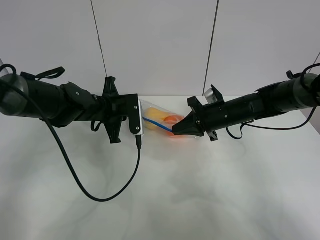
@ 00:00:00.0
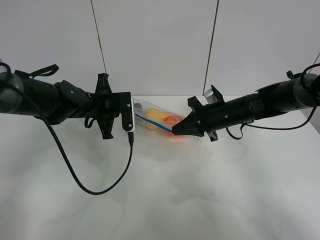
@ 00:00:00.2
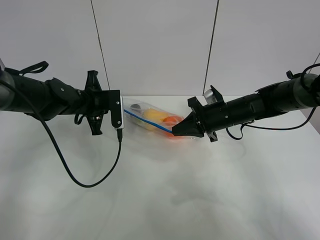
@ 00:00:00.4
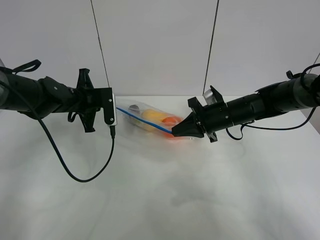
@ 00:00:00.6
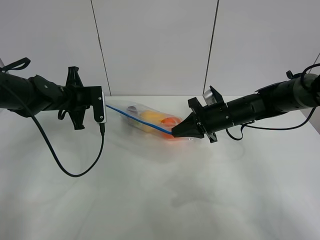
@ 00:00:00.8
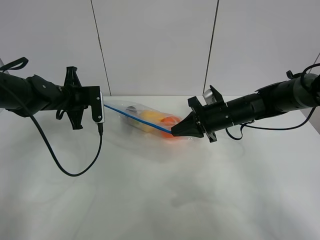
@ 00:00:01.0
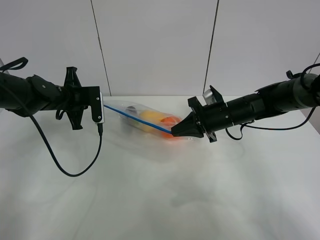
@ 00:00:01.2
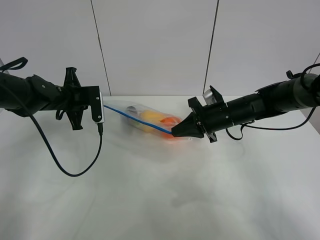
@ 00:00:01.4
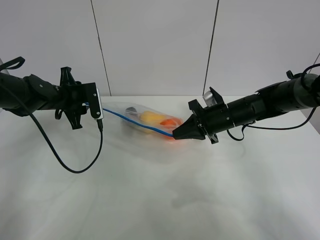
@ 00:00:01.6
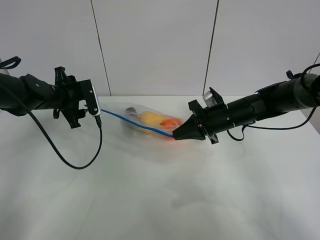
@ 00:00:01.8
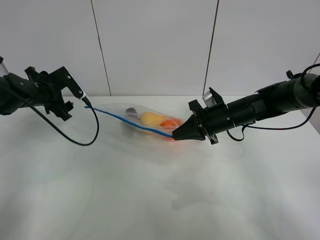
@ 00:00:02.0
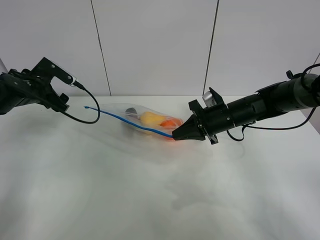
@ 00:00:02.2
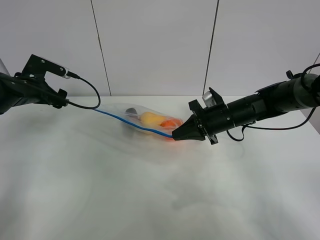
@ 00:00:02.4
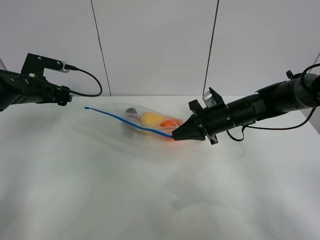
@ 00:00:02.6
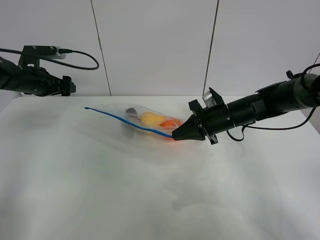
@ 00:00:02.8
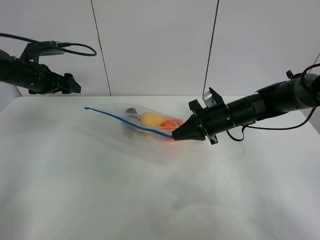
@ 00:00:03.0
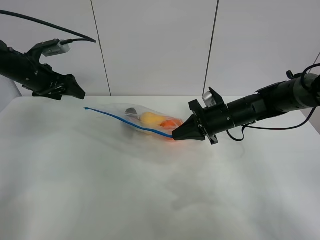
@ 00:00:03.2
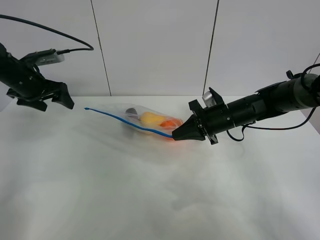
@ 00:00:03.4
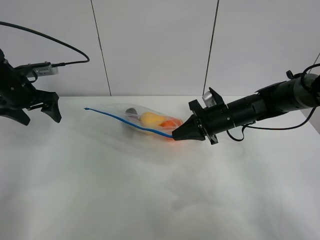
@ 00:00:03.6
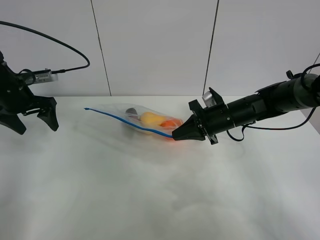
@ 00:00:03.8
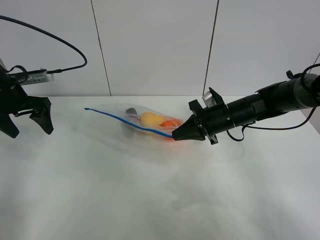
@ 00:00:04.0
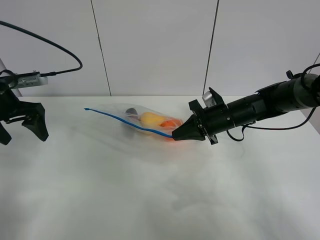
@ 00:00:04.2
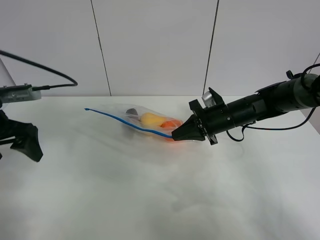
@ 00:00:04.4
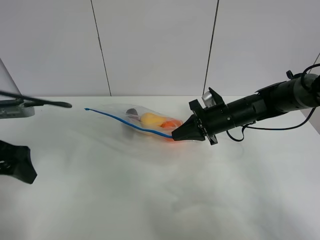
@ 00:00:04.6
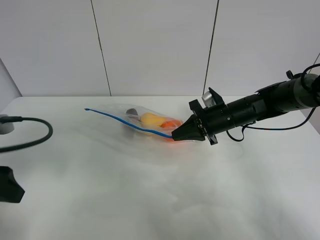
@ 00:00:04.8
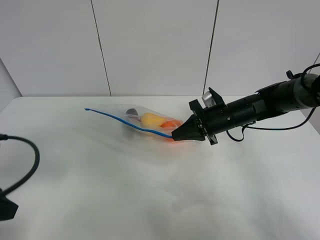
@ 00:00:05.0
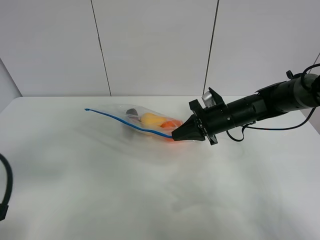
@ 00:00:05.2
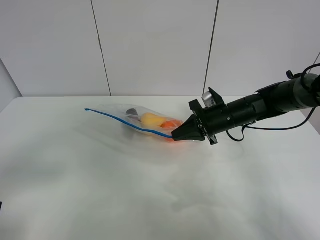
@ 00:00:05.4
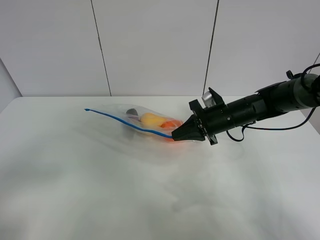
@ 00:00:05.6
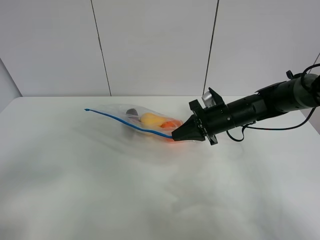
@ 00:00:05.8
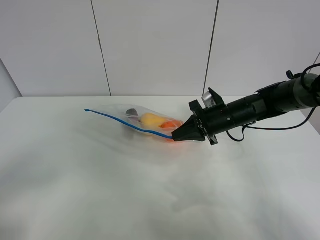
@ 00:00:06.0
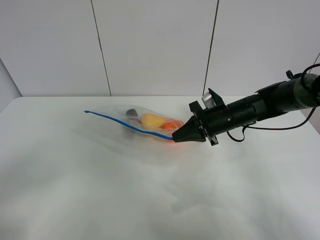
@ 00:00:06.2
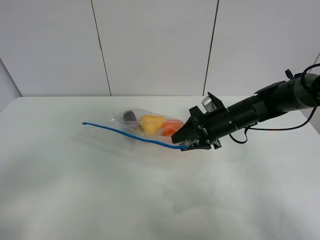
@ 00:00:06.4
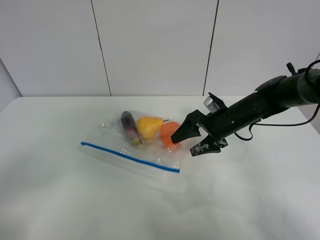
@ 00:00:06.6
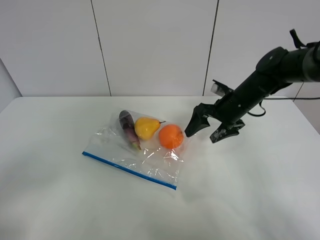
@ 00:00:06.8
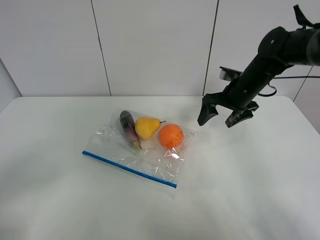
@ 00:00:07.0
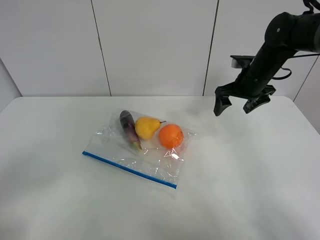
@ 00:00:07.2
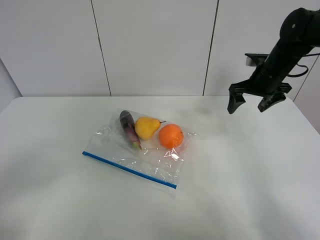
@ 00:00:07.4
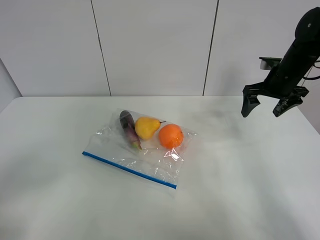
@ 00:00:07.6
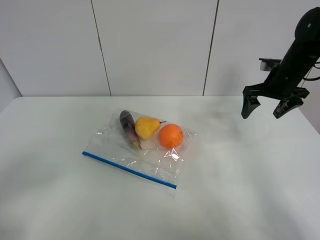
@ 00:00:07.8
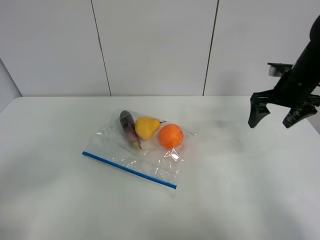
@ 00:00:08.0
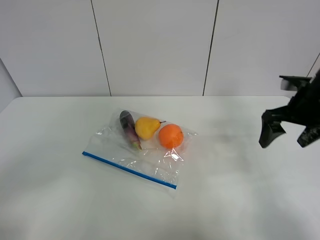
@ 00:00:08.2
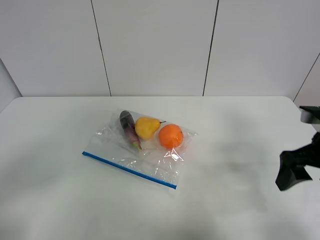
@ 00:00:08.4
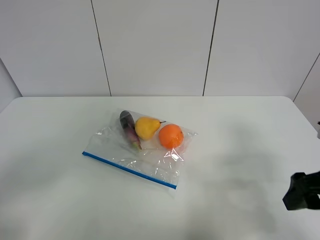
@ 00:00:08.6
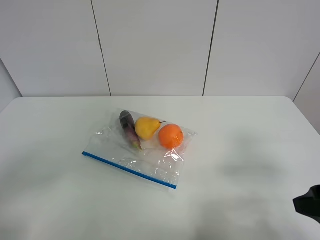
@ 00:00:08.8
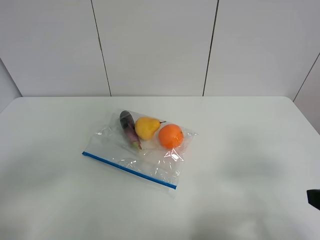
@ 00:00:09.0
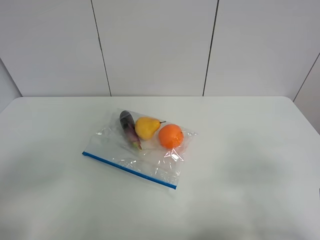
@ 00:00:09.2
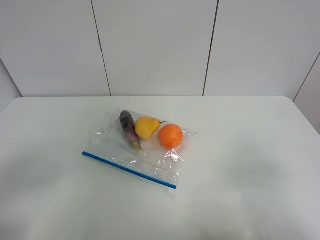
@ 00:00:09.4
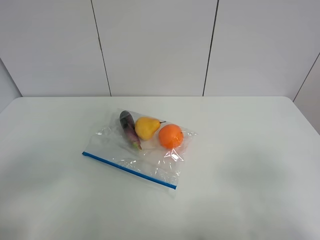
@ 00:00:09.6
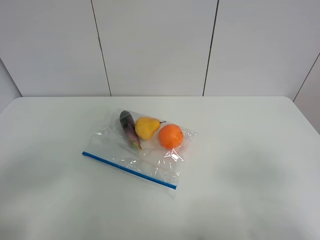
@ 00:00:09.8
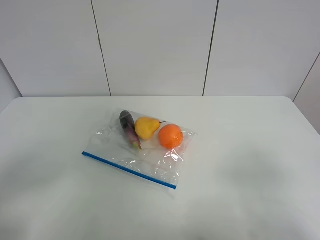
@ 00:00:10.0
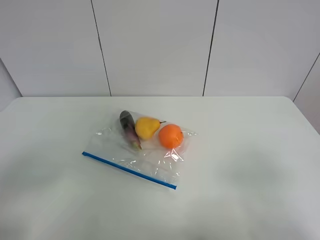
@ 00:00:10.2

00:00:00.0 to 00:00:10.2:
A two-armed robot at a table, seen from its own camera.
00:00:00.0 to 00:00:01.4: The left gripper is displaced to the left by some 10 cm.
00:00:01.4 to 00:00:03.0: The left gripper goes approximately 10 cm to the left, and opens.
00:00:03.0 to 00:00:04.4: The left gripper shifts about 15 cm backward.
00:00:04.4 to 00:00:05.8: The left gripper heads backward, covering some 20 cm.
00:00:05.8 to 00:00:07.2: The right gripper is displaced upward, to the right and forward by about 15 cm, and opens up.
00:00:07.2 to 00:00:08.8: The right gripper travels backward by about 30 cm.
00:00:08.8 to 00:00:10.2: The right gripper is displaced backward by approximately 10 cm.

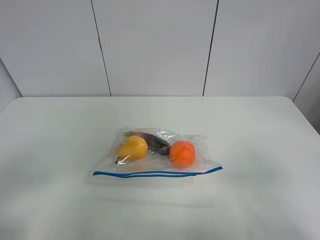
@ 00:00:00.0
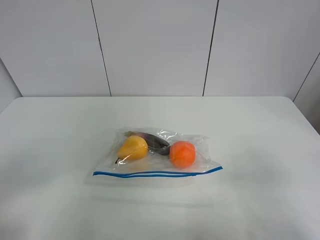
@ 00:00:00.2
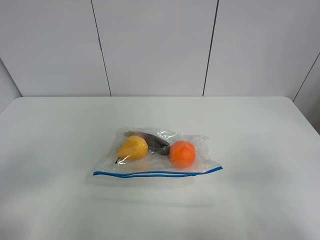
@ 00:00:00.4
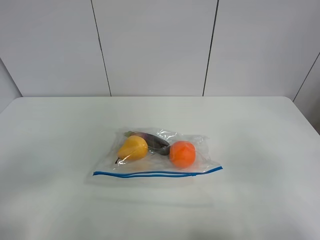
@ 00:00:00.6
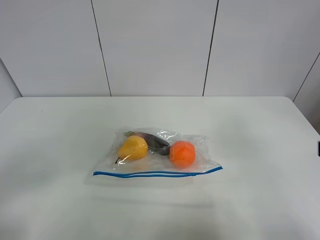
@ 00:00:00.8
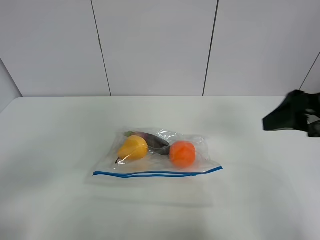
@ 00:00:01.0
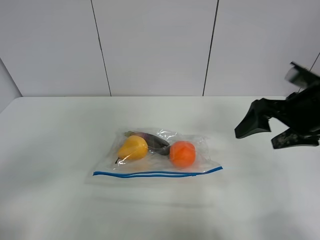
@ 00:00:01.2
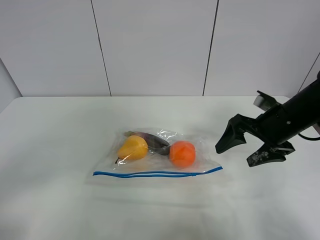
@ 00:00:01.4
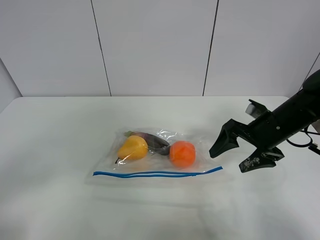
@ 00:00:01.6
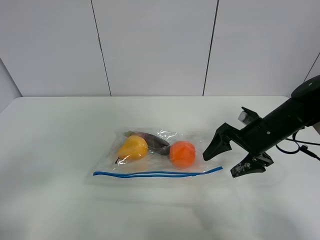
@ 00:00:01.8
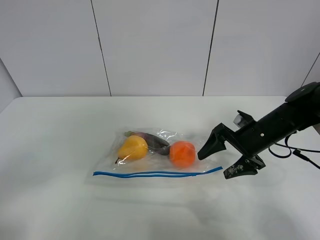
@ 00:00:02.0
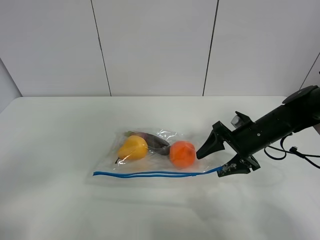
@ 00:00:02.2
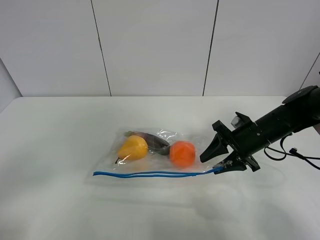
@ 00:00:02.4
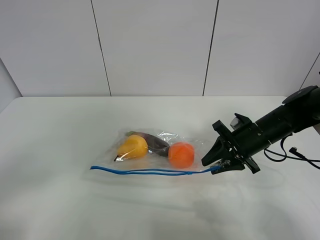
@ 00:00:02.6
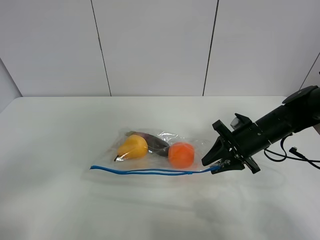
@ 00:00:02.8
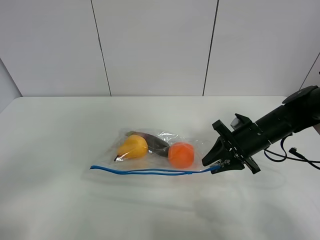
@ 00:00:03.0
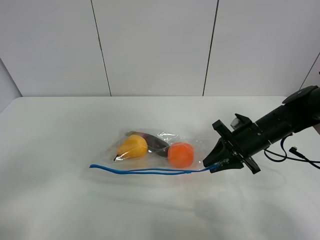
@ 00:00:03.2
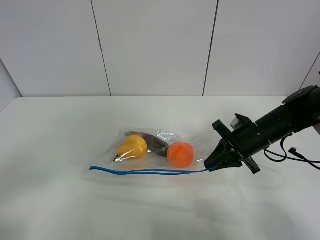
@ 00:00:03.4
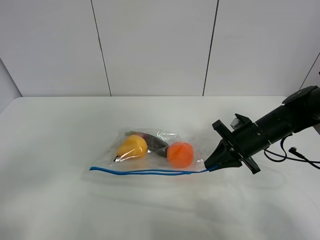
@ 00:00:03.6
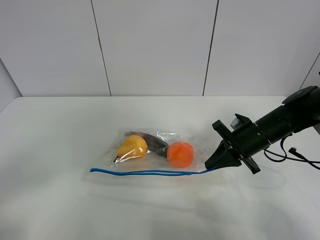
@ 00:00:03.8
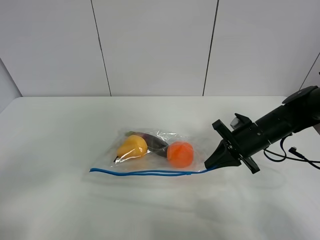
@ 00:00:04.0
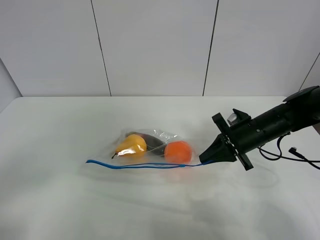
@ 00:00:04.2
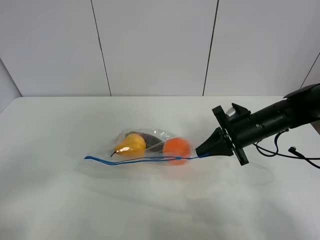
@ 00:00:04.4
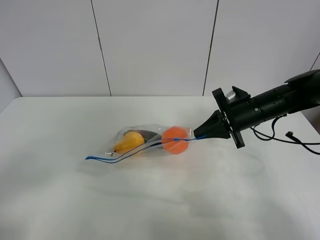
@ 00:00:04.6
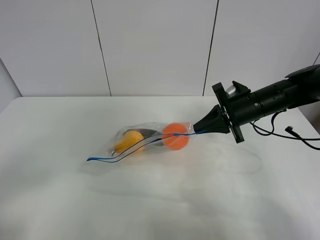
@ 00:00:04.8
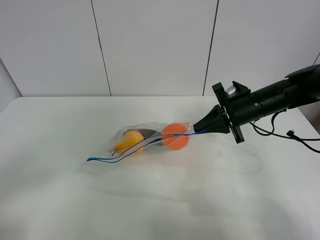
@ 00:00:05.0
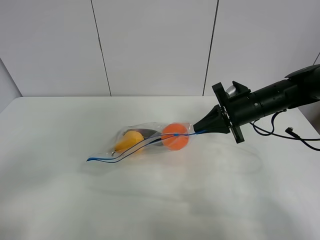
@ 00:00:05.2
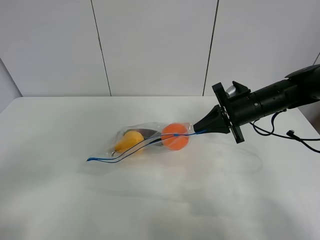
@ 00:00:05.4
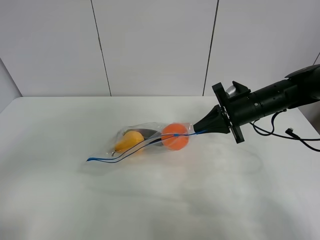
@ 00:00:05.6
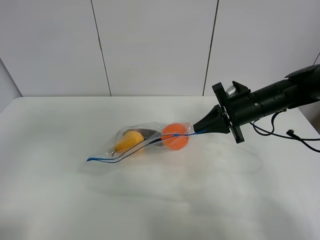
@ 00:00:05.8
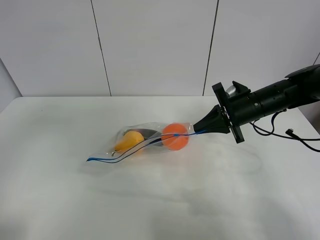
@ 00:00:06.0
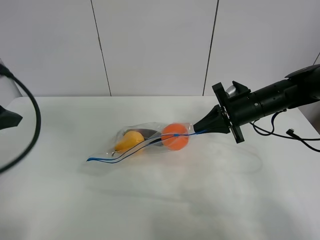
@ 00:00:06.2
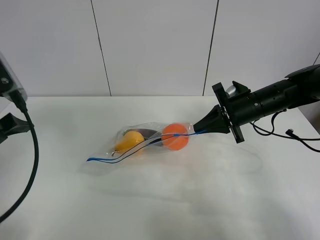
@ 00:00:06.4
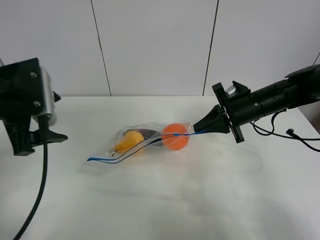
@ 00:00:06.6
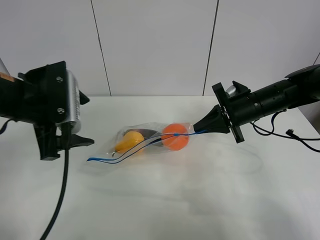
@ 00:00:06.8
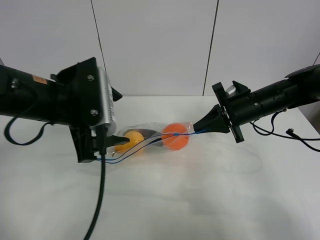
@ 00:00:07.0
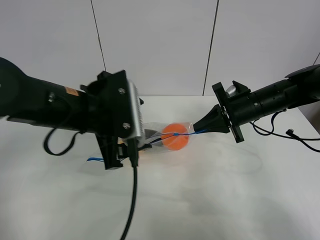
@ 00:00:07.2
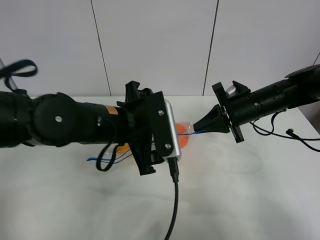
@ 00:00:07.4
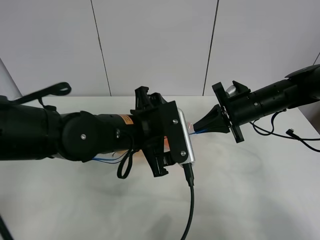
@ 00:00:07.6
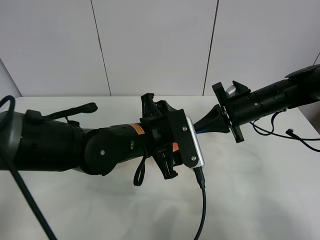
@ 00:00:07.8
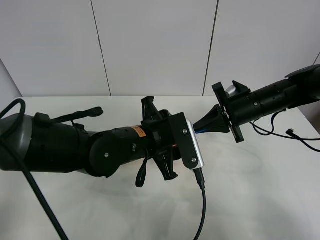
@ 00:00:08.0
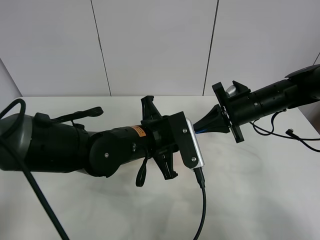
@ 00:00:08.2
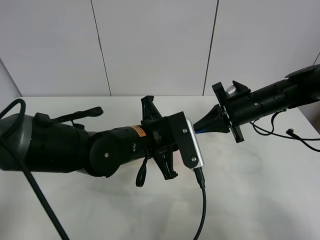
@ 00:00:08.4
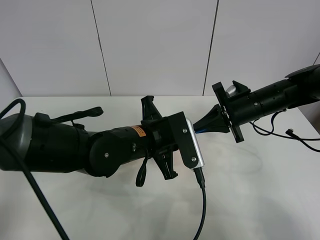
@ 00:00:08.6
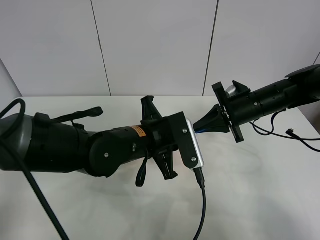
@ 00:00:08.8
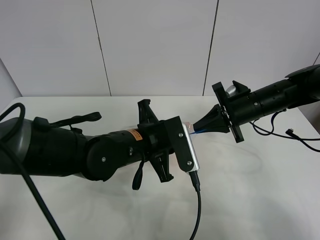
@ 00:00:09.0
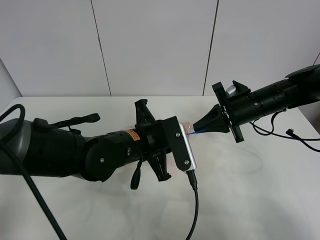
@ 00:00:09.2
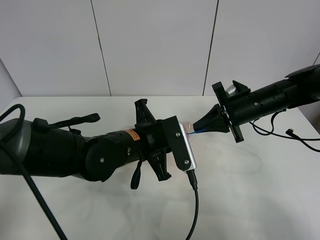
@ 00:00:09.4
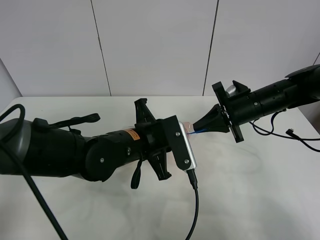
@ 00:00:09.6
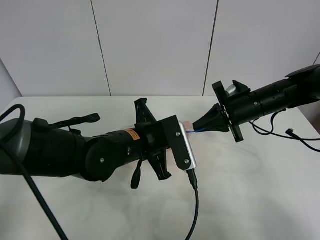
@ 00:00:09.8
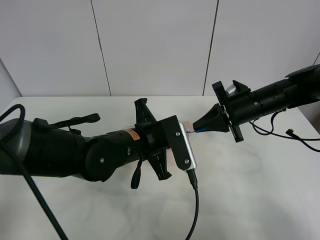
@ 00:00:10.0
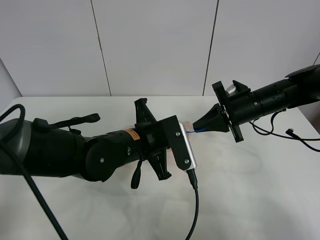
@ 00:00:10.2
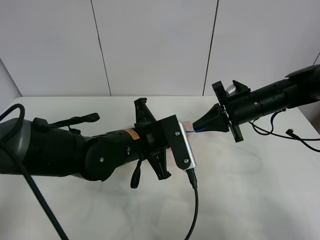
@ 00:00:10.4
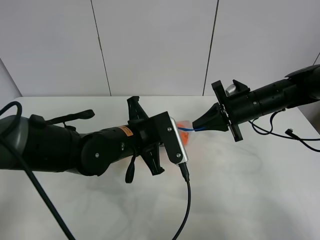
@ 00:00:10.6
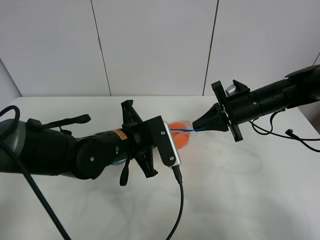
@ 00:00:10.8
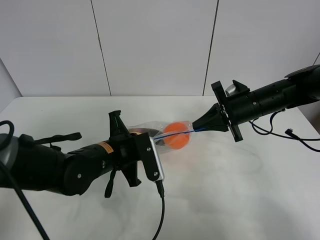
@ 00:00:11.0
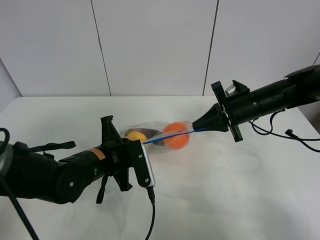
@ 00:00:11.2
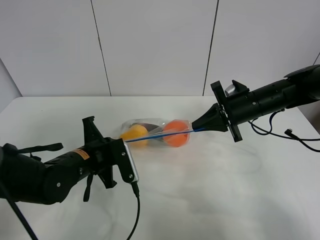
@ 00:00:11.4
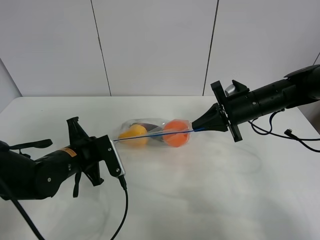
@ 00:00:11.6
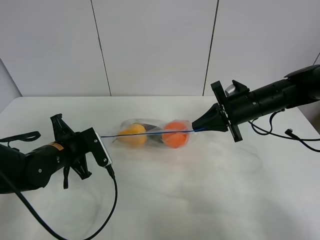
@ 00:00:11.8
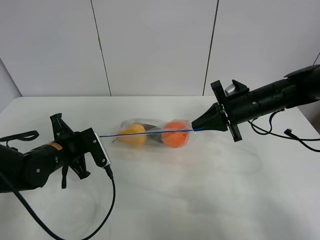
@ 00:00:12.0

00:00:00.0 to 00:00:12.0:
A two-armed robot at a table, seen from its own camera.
Step, 00:00:00.0 to 00:00:03.6: Grasp the fruit bag with right gripper.
Step, 00:00:03.8 to 00:00:04.8: Lift the fruit bag with your right gripper.
00:00:00.0 to 00:00:01.6: The right gripper shifts about 30 cm forward.
00:00:01.6 to 00:00:03.0: The right gripper closes.
00:00:03.0 to 00:00:04.4: The right gripper closes up.
00:00:04.4 to 00:00:06.0: The left gripper moves forward and upward, some 15 cm.
00:00:06.0 to 00:00:07.6: The left gripper travels to the right and downward by about 30 cm.
00:00:07.6 to 00:00:09.0: The left gripper closes.
00:00:09.0 to 00:00:10.4: Both grippers stay about where they are.
00:00:10.4 to 00:00:12.0: The left gripper travels to the left by some 15 cm.
